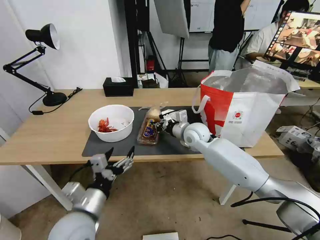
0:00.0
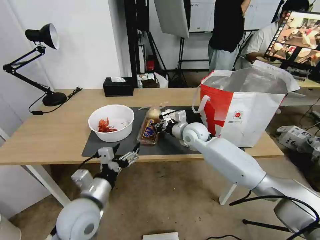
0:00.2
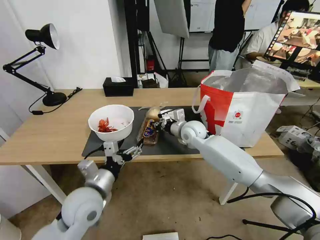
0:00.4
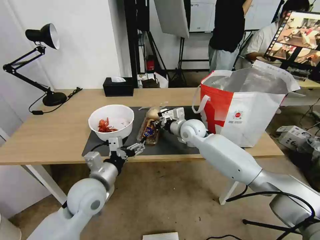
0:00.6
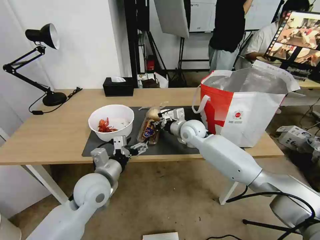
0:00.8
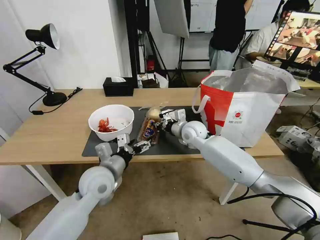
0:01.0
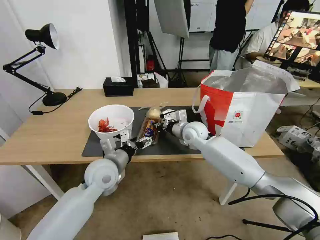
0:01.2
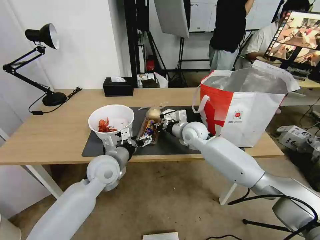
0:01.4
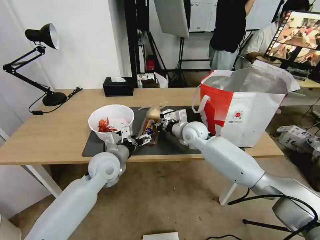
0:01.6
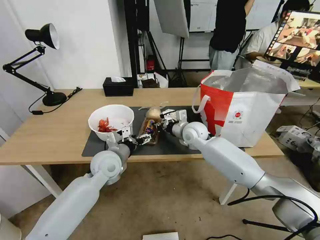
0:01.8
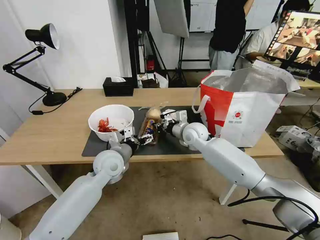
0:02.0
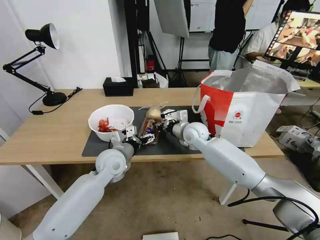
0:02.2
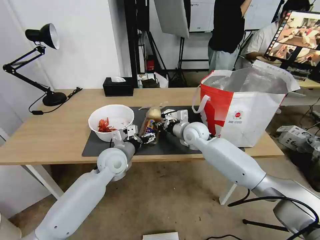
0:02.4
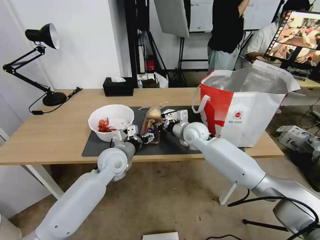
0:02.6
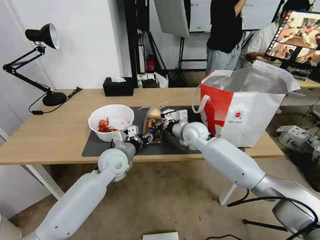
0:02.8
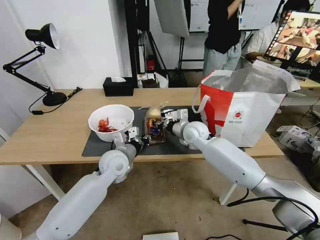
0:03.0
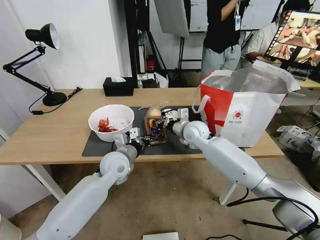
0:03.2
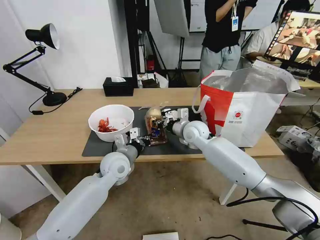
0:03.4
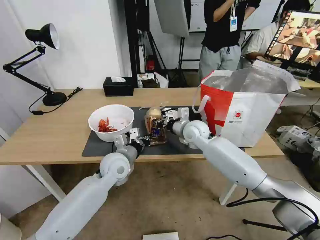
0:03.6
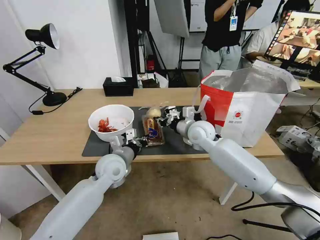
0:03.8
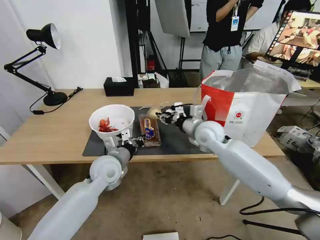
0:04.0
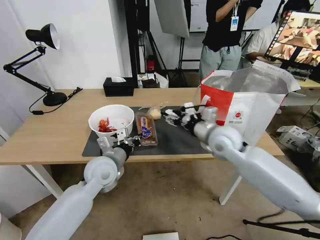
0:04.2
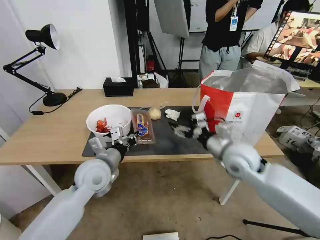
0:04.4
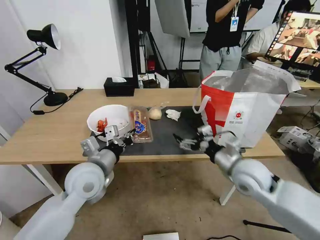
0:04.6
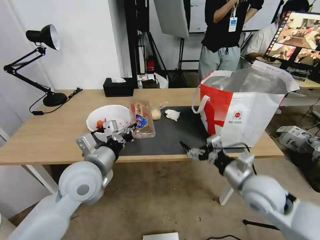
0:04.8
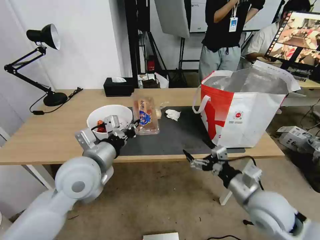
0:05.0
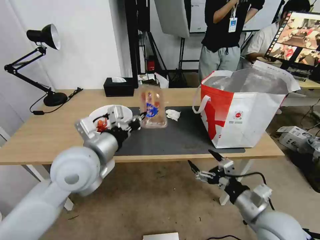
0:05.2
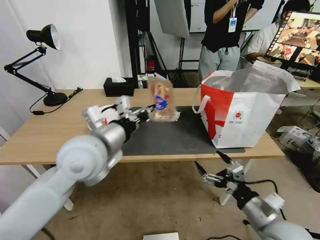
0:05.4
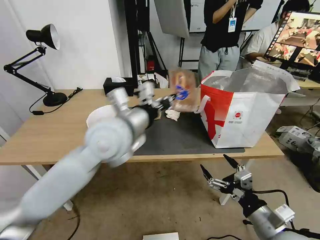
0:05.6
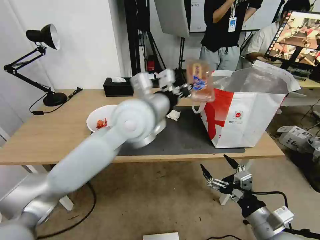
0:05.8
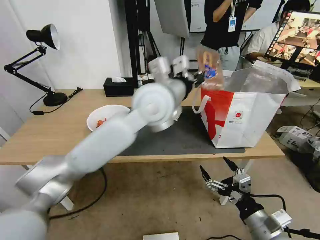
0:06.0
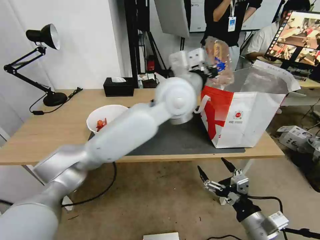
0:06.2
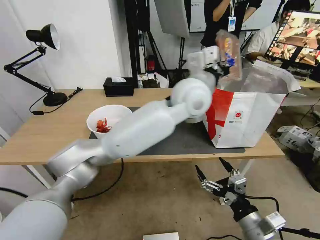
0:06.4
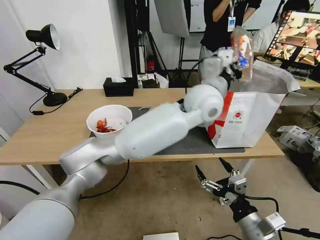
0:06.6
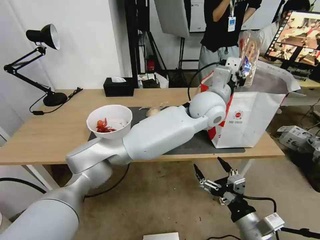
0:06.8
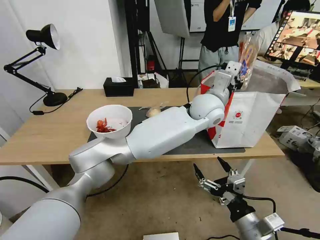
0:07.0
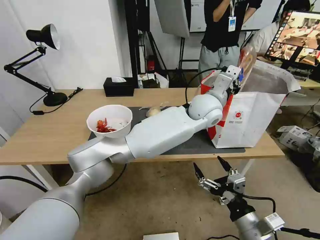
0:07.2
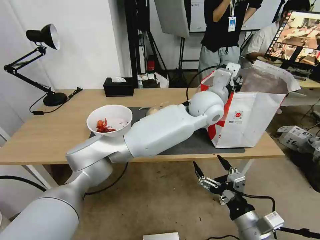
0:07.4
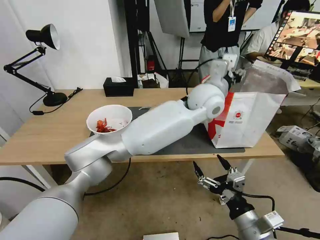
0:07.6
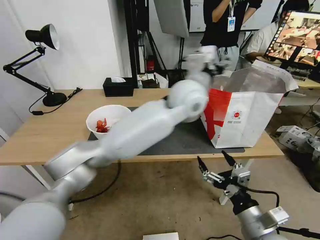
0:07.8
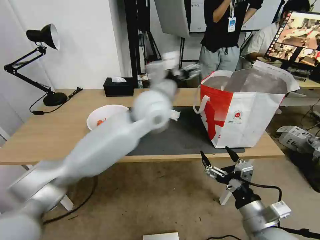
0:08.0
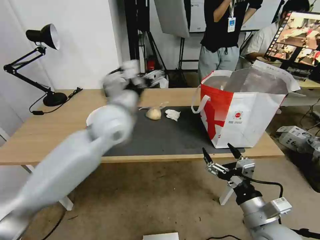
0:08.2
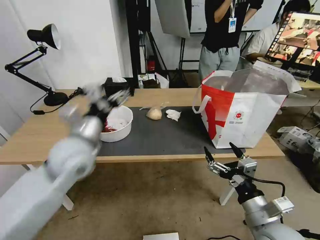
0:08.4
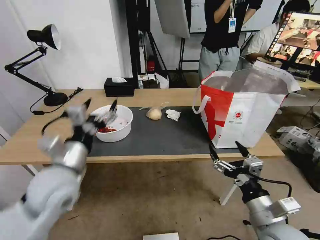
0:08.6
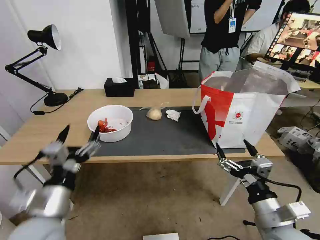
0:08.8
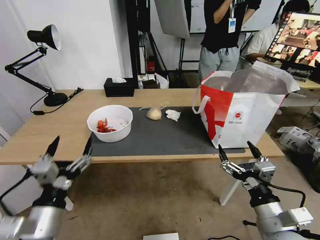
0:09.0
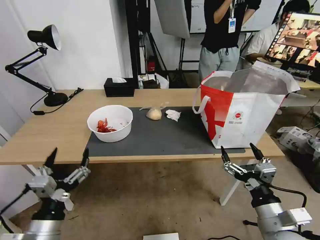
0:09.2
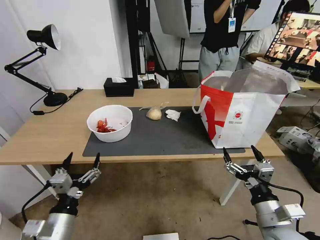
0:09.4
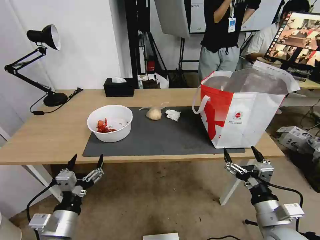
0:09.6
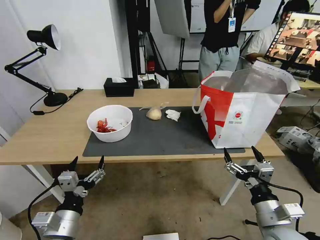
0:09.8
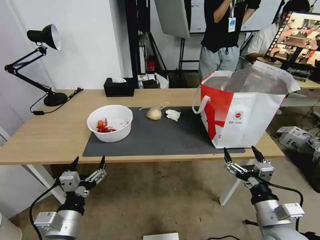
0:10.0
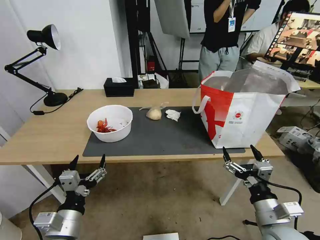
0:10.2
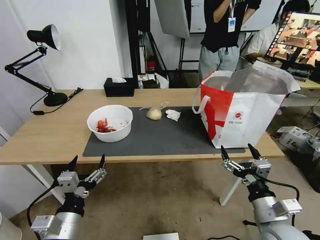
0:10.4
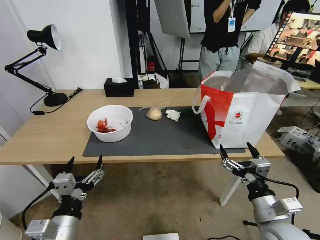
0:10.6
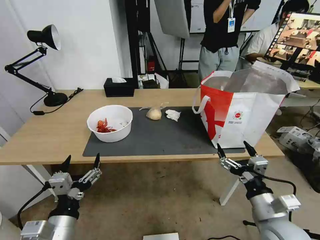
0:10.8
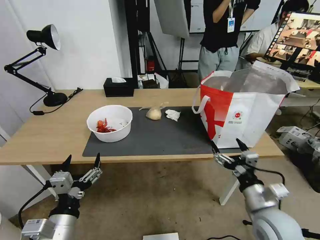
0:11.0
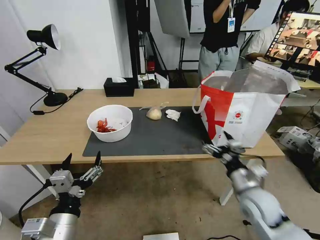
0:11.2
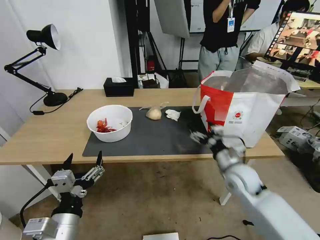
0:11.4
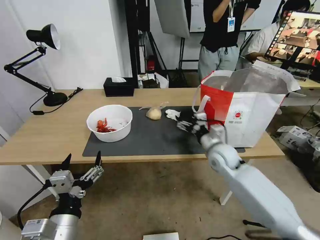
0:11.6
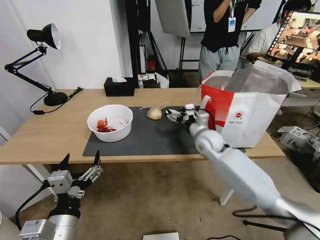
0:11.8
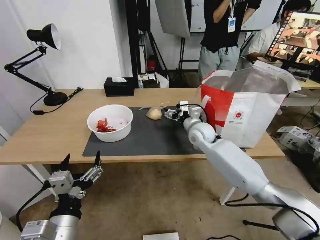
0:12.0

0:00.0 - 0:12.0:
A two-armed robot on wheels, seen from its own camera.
Task of the whole recording: Pick up the trash from the table and place it into the takeout bag.
0:00.0 - 0:01.6: The left gripper heads forward, covering some 20 cm.
0:01.6 - 0:03.0: The left gripper closes its fingers.
0:03.0 - 0:04.4: The right gripper is displaced backward and to the right by about 15 cm, and opens. Meanwhile the left gripper travels backward by roughly 5 cm.
0:04.4 - 0:06.0: The left gripper is displaced upward and to the right by some 25 cm; the right gripper travels backward by roughly 25 cm.
0:06.0 - 0:07.6: The left gripper travels to the right and forward by roughly 15 cm, and opens up.
0:07.6 - 0:09.0: The left gripper goes about 50 cm to the left, backward and downward, and opens.
0:09.0 - 0:10.4: The grippers make only small movements.
0:10.4 - 0:12.0: The right gripper heads forward and to the left, covering some 35 cm.

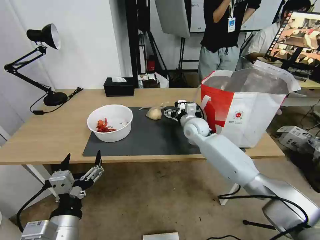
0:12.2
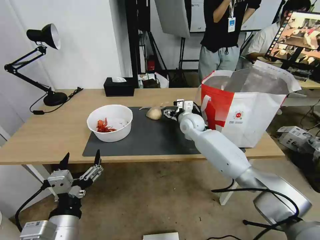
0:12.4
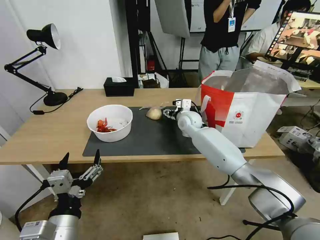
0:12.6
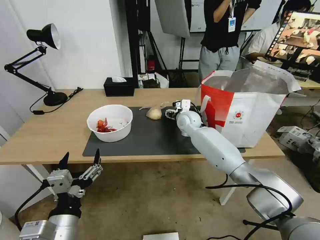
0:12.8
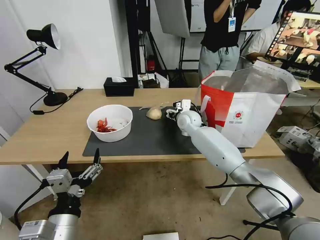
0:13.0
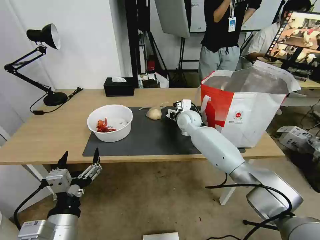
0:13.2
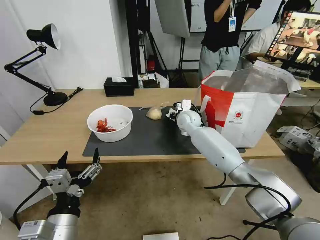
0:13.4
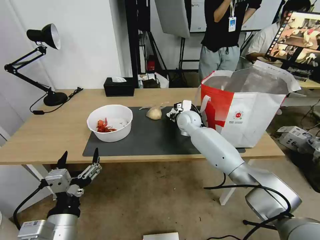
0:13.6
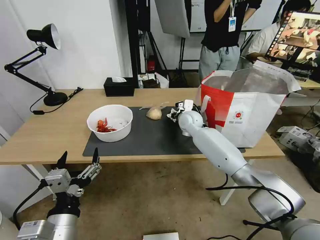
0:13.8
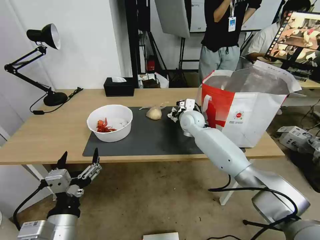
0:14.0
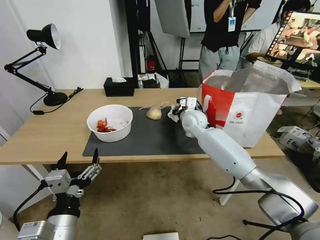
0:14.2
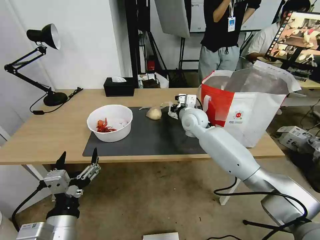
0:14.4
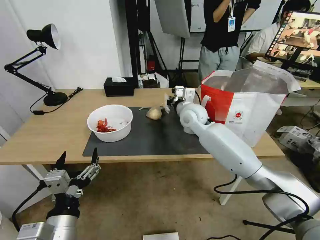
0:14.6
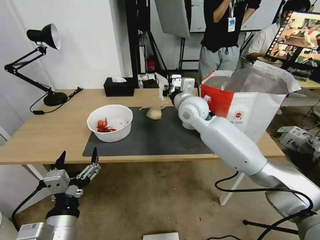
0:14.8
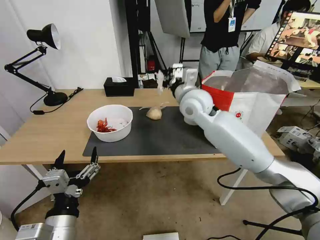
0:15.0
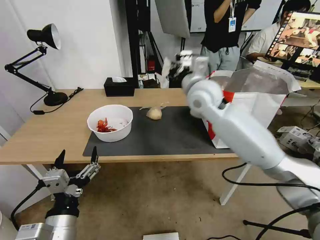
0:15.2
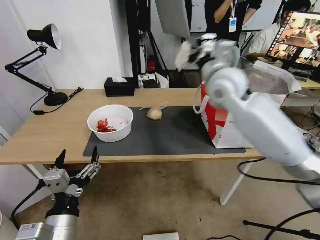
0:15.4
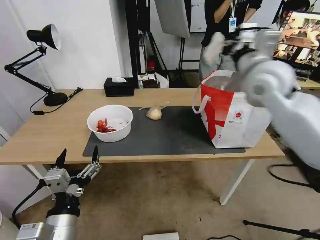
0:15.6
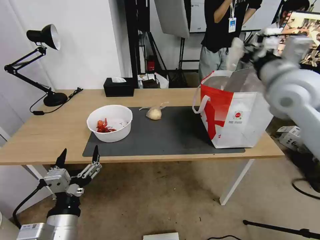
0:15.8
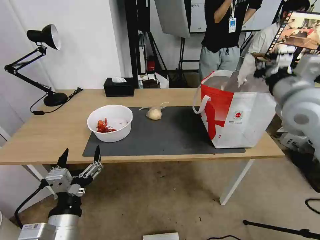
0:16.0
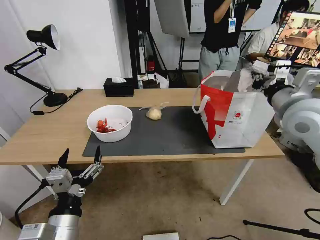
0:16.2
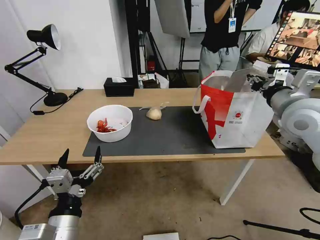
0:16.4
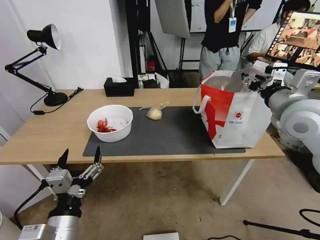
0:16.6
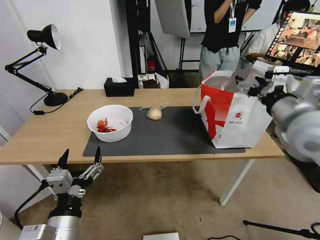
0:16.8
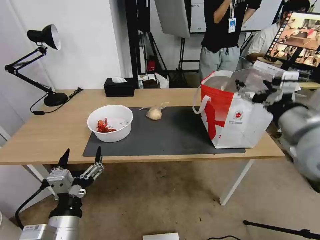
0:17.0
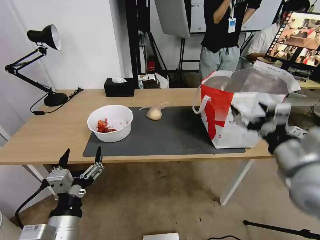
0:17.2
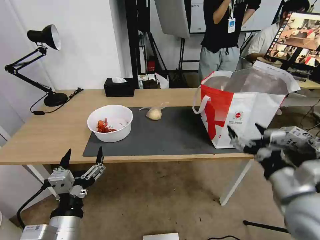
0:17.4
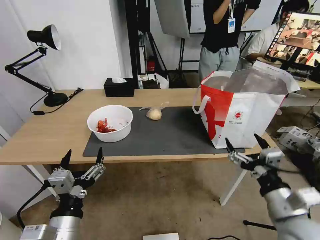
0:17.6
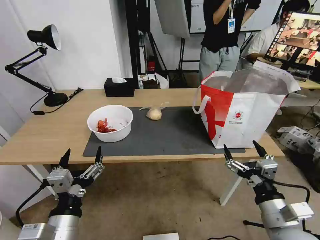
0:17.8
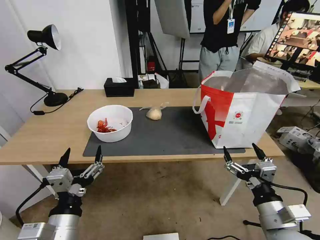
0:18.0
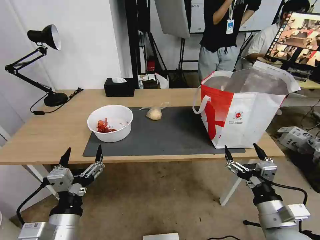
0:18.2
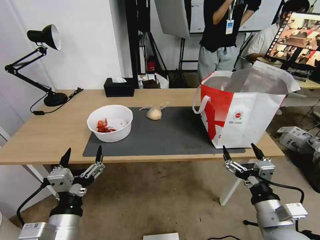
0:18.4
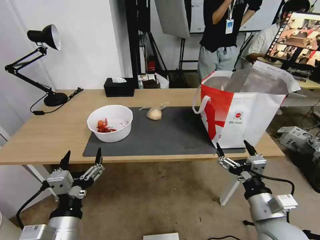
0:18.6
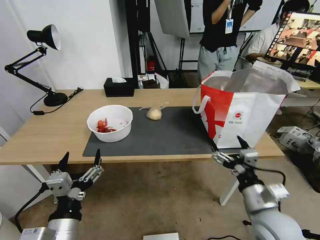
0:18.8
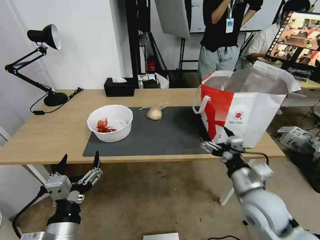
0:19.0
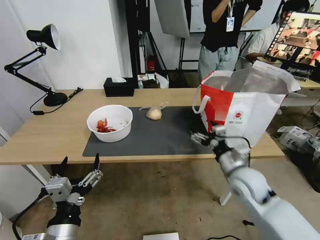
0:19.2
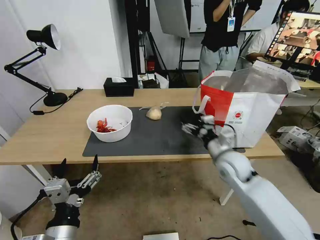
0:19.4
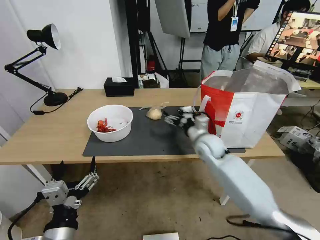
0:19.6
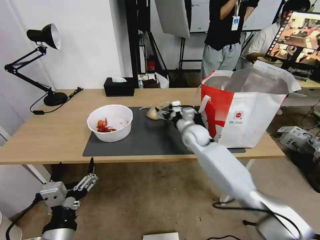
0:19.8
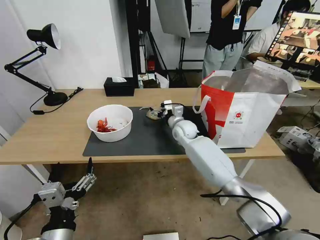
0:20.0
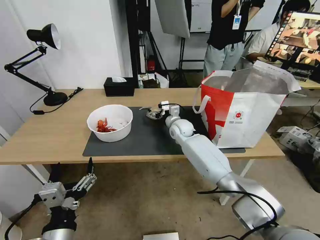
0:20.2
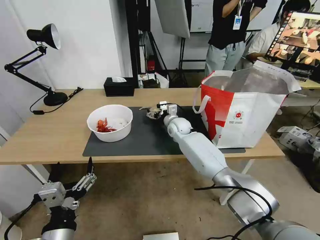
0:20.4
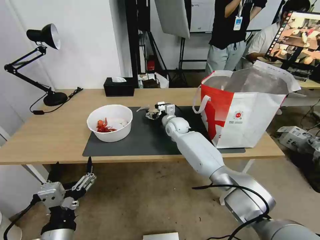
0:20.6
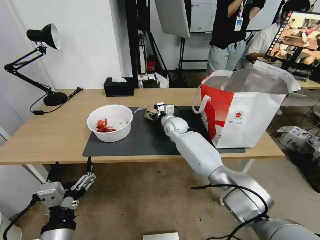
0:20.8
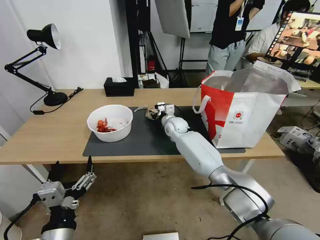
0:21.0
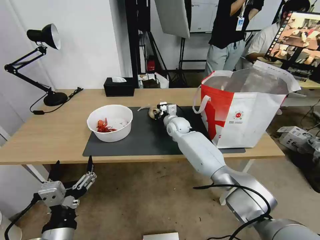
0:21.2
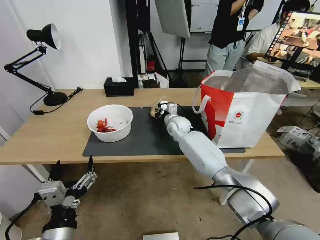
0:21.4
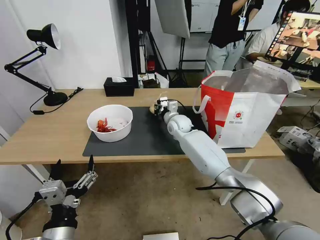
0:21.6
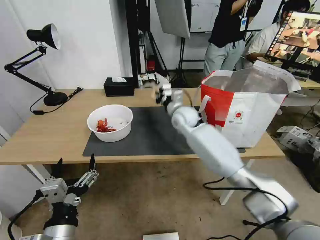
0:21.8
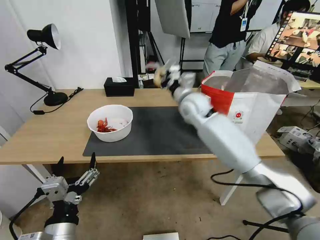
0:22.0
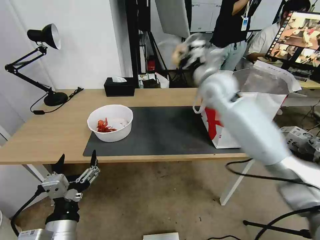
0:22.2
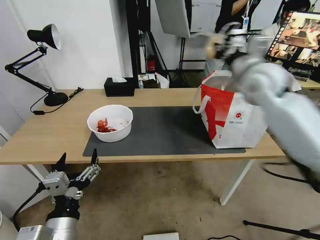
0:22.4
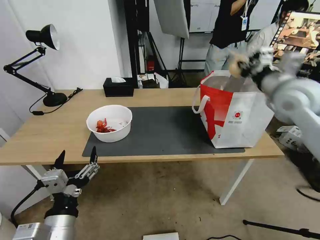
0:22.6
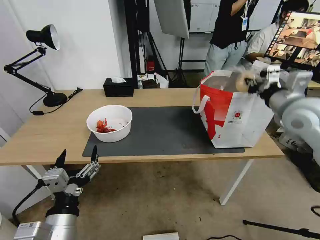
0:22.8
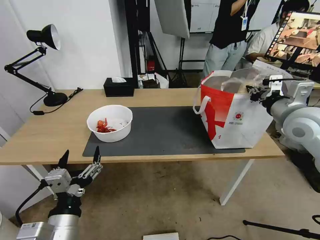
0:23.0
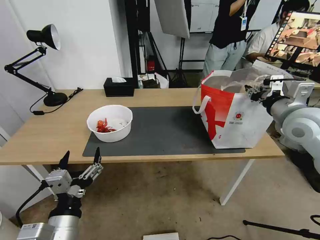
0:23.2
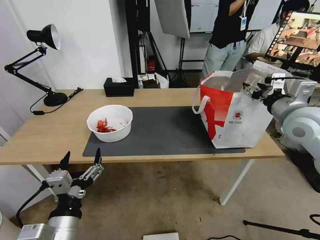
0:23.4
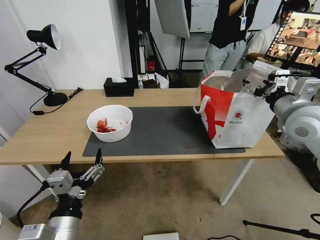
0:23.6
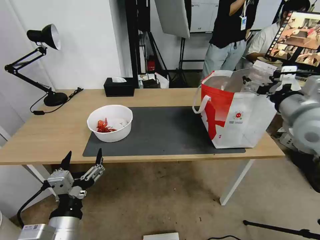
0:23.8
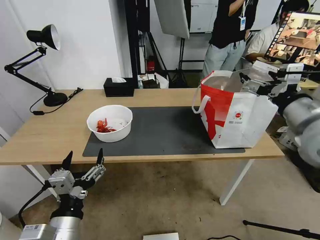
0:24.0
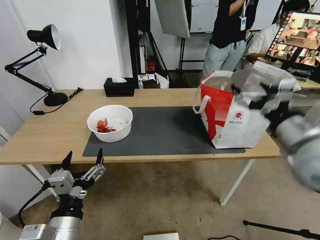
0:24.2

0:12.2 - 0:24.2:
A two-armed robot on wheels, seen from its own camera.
Task of the whole recording: Pick up the trash from the table and place it into the takeout bag.
0:12.2 - 0:13.8: The right gripper closes.
0:13.8 - 0:15.2: The right gripper moves upward and backward, roughly 20 cm.
0:15.2 - 0:16.6: The right gripper goes roughly 25 cm to the right and backward, and opens.
0:16.6 - 0:18.2: The right gripper goes roughly 30 cm backward and downward, and opens.
0:18.2 - 0:19.8: The right gripper shifts some 40 cm forward and to the left.
0:19.8 - 0:21.2: The right gripper goes about 10 cm forward and to the left, and closes.
0:21.2 - 0:22.6: The right gripper heads to the right, upward and backward, covering roughly 40 cm.
0:22.6 - 0:24.2: The right gripper goes some 15 cm backward, and opens.
